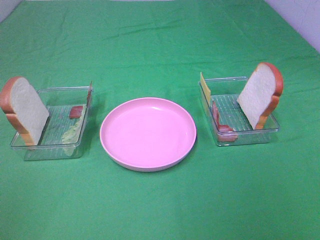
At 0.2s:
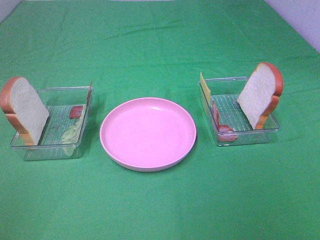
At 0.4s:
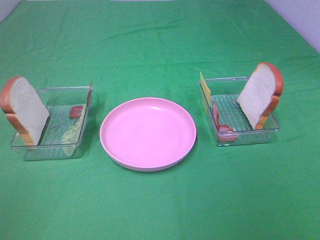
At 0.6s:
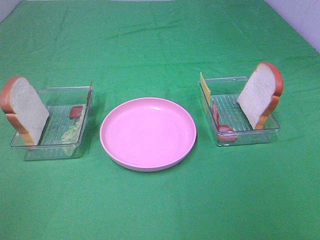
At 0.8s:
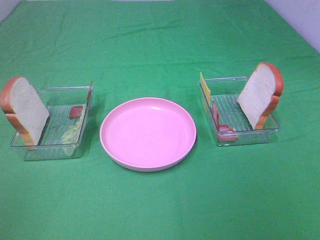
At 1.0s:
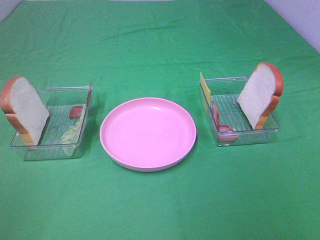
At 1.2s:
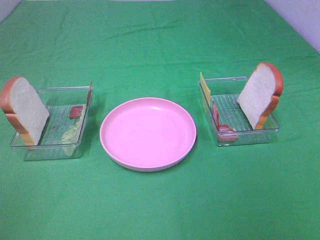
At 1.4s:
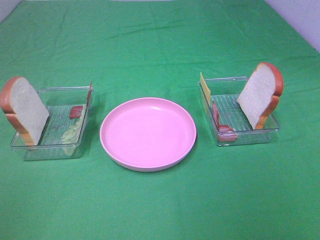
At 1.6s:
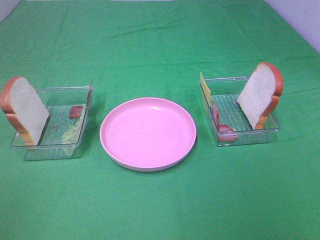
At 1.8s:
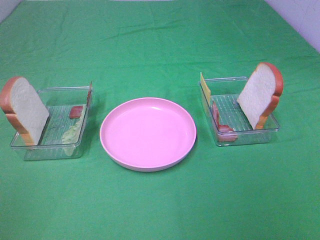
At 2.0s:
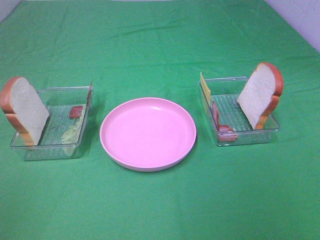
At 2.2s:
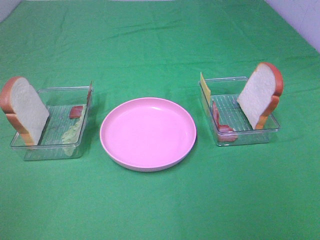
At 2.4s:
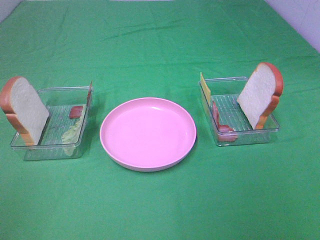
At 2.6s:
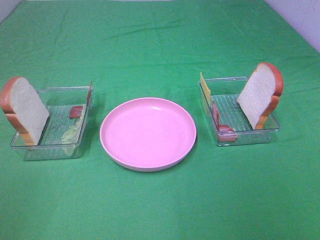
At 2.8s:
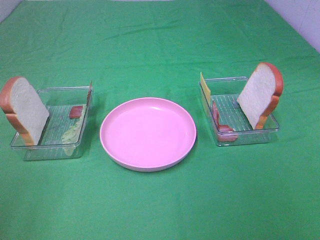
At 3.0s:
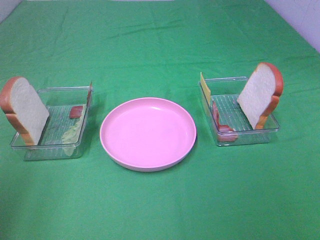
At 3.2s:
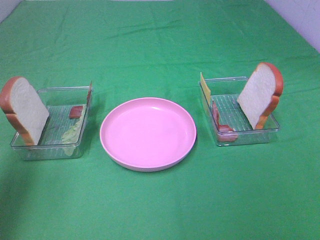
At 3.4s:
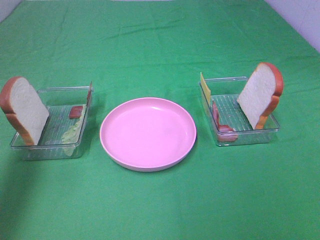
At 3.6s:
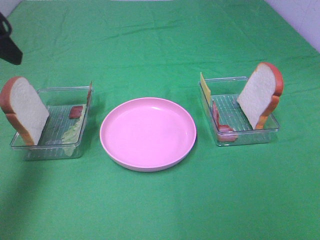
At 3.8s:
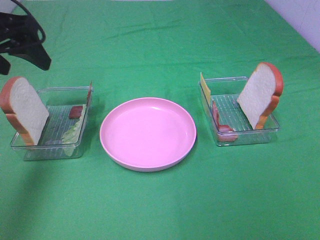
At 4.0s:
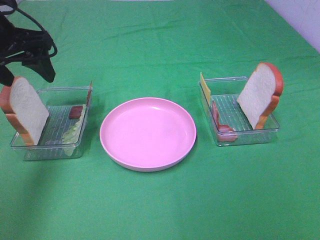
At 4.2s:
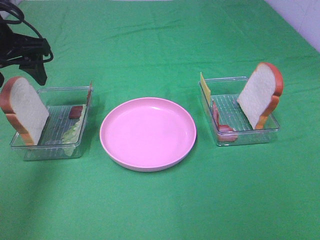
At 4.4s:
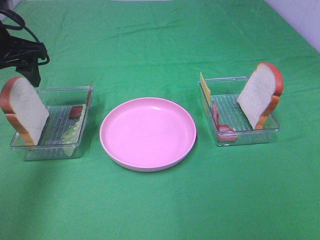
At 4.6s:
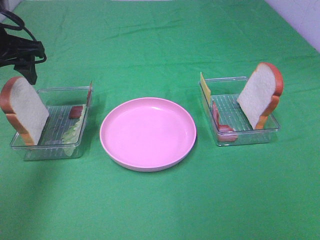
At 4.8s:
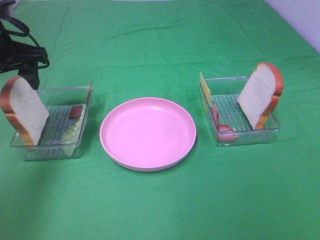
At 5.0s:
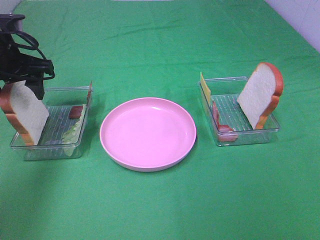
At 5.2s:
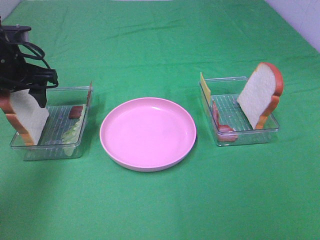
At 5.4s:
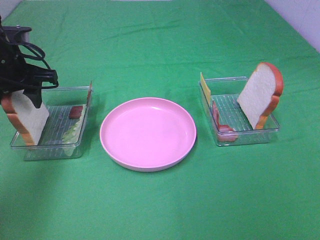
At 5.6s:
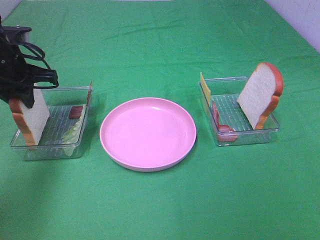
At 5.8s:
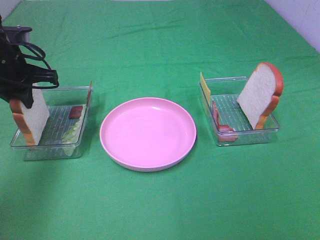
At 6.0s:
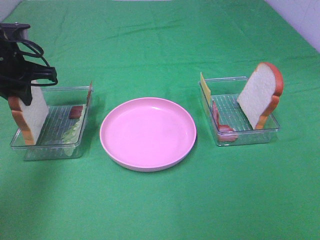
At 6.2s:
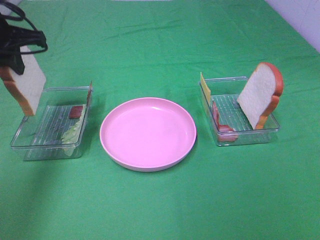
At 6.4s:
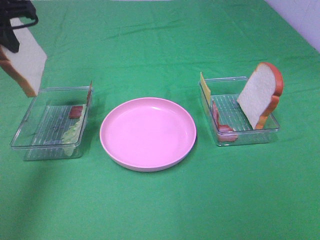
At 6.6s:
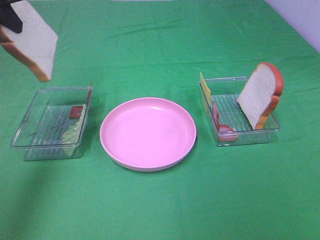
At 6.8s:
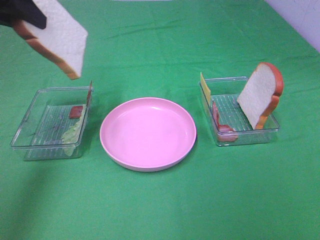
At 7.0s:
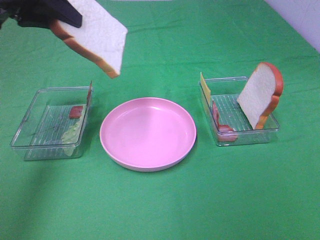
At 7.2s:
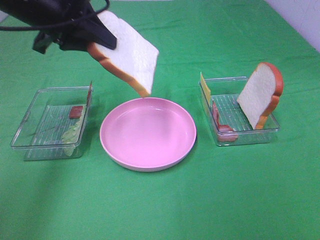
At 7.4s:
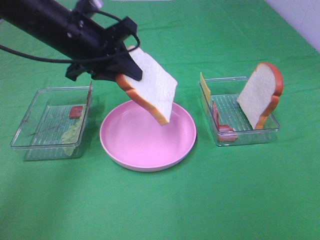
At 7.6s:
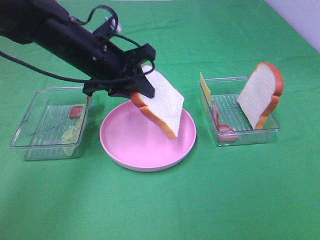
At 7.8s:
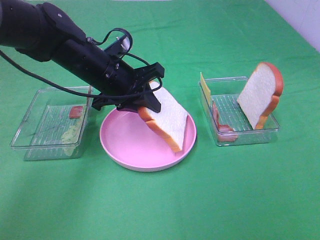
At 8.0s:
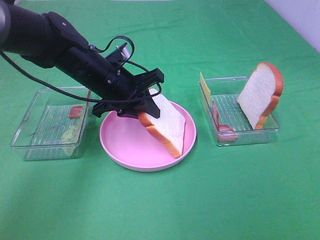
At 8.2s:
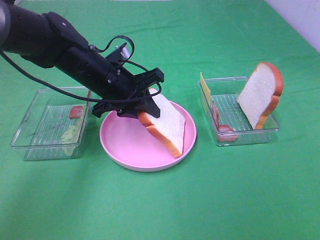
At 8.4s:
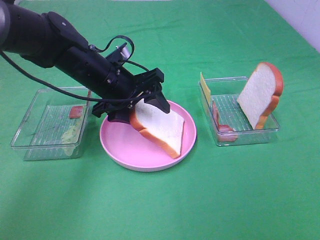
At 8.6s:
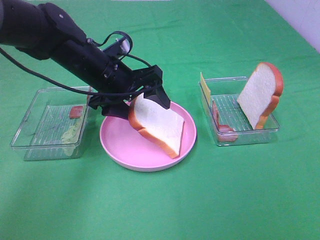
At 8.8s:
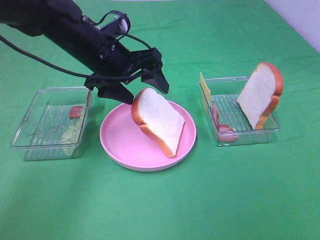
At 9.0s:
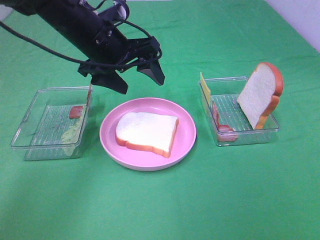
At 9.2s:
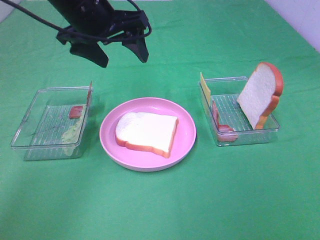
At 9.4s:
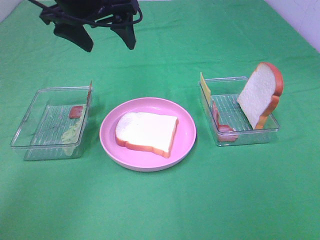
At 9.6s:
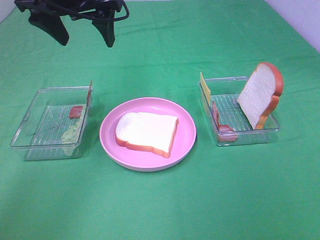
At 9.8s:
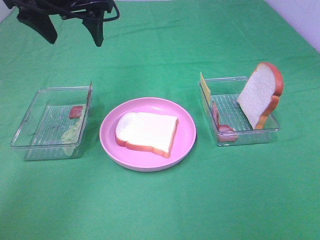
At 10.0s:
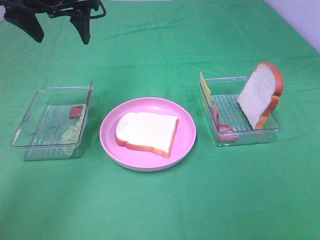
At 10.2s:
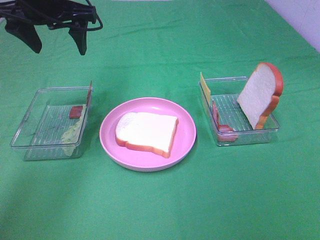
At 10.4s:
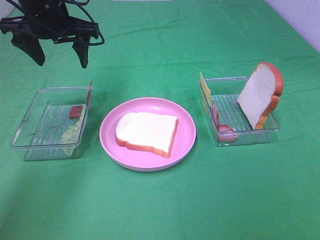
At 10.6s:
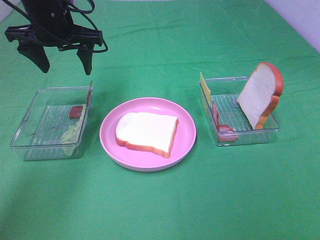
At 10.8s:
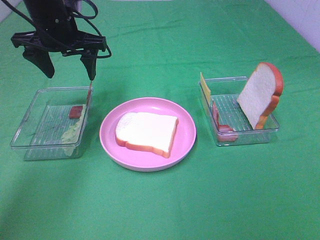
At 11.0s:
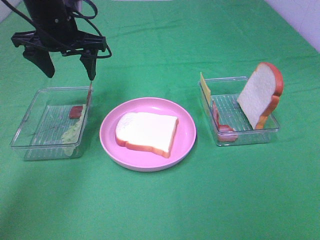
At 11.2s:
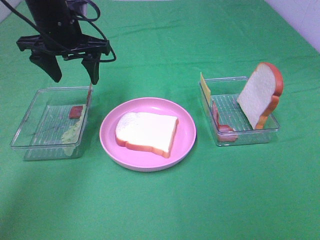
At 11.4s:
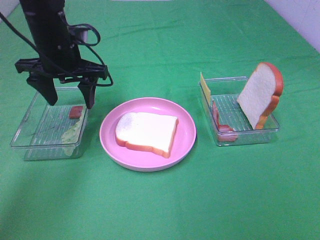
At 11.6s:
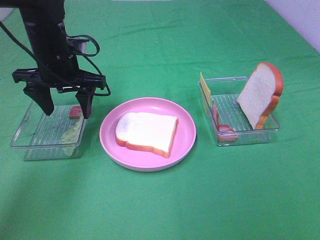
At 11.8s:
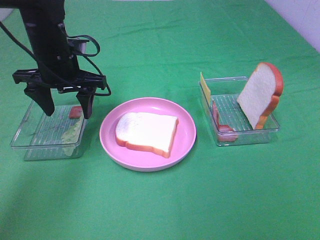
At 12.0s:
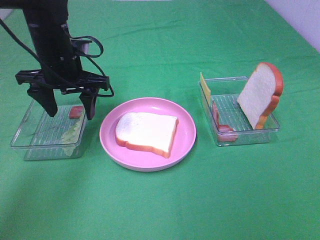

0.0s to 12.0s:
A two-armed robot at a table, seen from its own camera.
Task of the whole recording: Make sandwiches.
Step, 0.0s to 5.8s: Left hand:grab the bread slice.
Step, 6.0s to 9.0s: Left hand:place the bread slice on the plate.
0.0s to 1.6s: The two grippers keep their place.
3.0s to 4.4s: The left gripper goes approximately 25 cm forward.
4.4s to 6.0s: The left gripper closes.
6.0s to 7.6s: The left gripper shifts about 15 cm to the right.
7.6s to 9.0s: The left gripper opens its fingers.
9.0s to 10.4s: The left gripper goes some 10 cm to the left.
10.4s to 12.0s: The left gripper is displaced downward by roughly 10 cm.

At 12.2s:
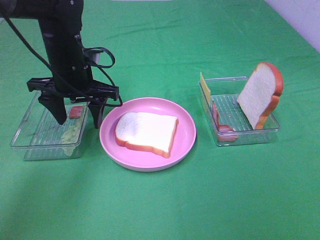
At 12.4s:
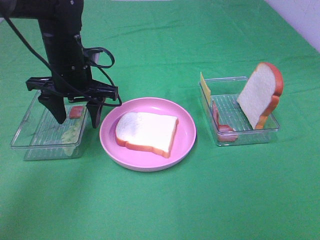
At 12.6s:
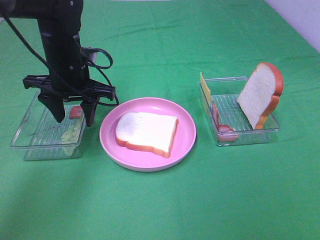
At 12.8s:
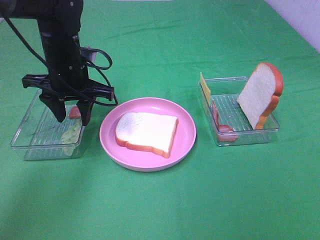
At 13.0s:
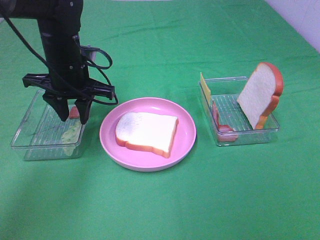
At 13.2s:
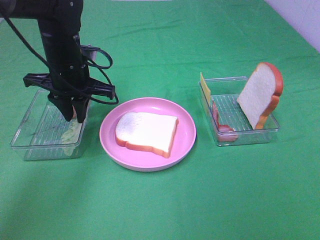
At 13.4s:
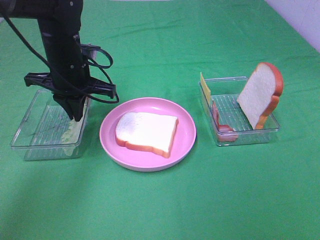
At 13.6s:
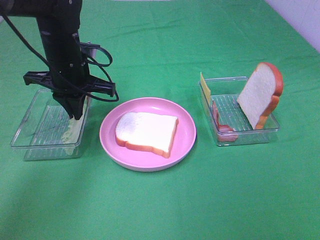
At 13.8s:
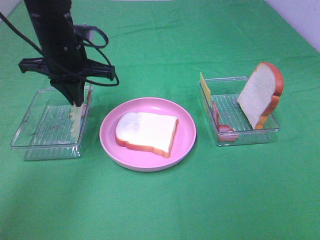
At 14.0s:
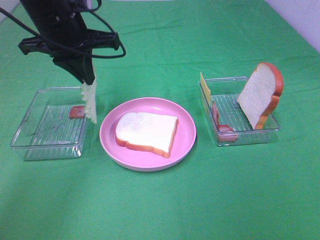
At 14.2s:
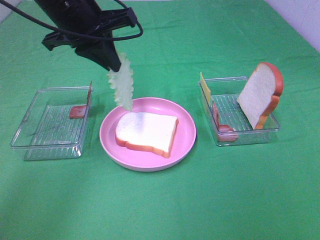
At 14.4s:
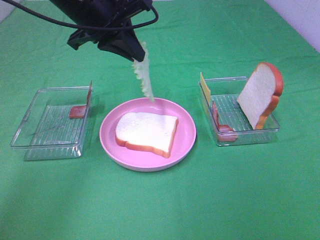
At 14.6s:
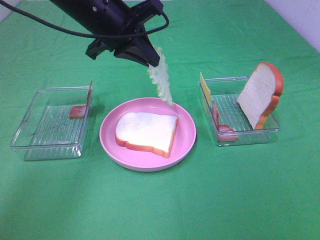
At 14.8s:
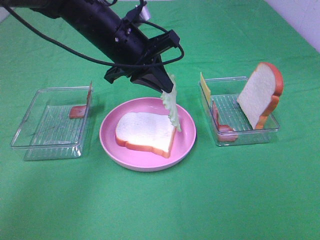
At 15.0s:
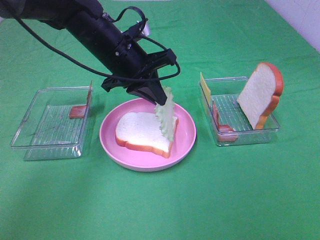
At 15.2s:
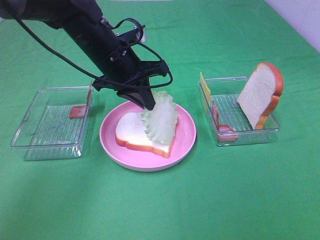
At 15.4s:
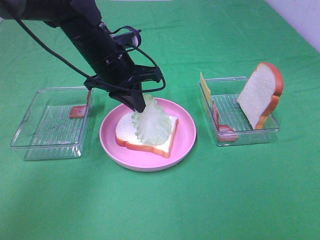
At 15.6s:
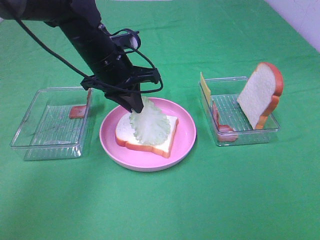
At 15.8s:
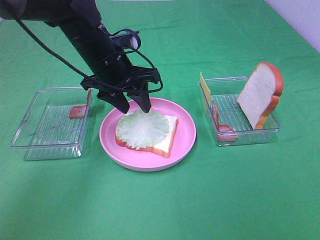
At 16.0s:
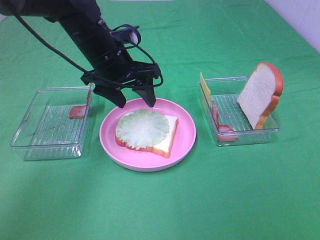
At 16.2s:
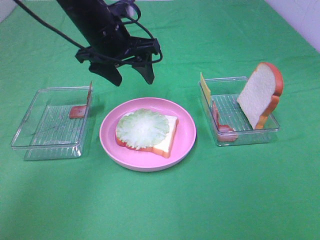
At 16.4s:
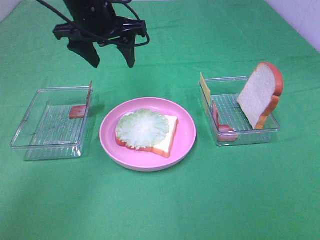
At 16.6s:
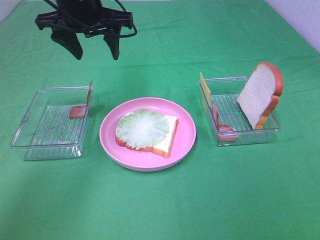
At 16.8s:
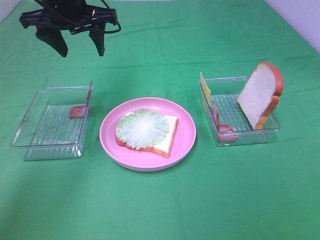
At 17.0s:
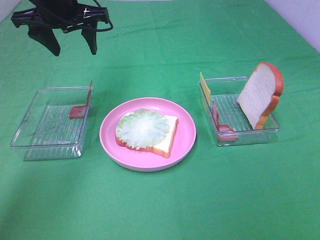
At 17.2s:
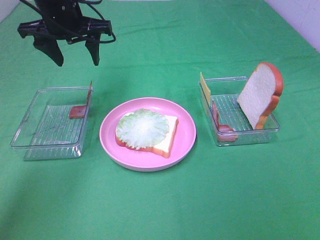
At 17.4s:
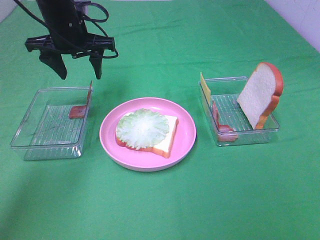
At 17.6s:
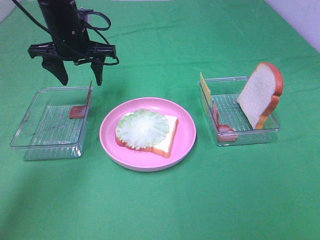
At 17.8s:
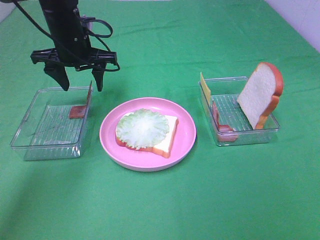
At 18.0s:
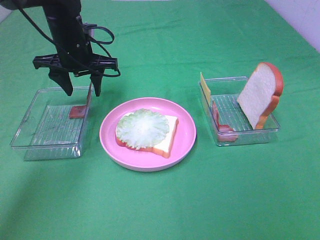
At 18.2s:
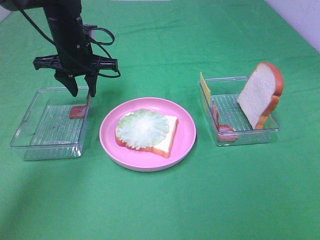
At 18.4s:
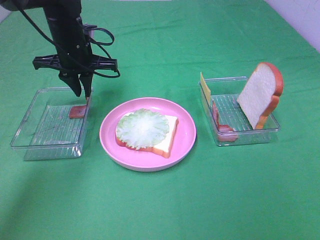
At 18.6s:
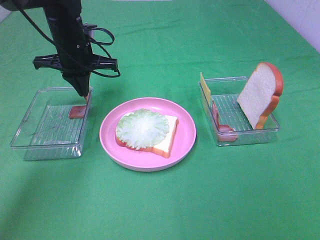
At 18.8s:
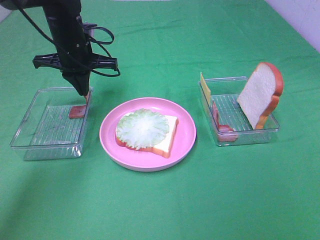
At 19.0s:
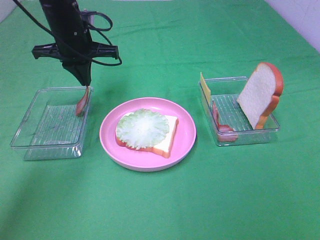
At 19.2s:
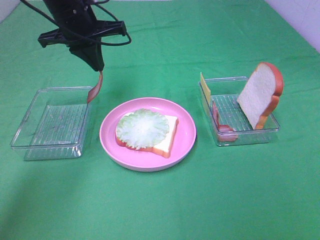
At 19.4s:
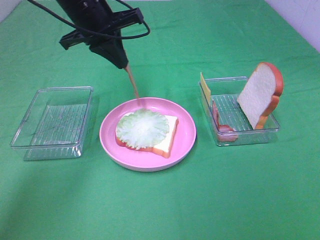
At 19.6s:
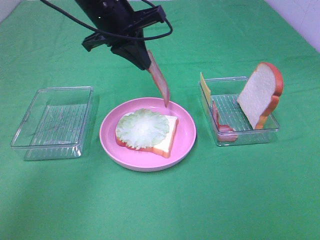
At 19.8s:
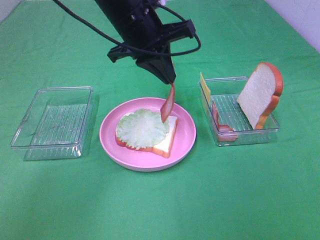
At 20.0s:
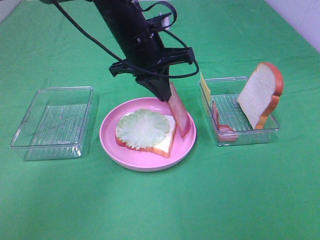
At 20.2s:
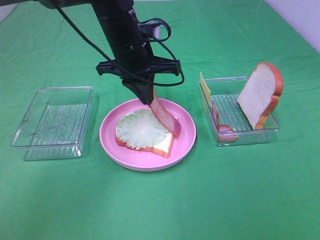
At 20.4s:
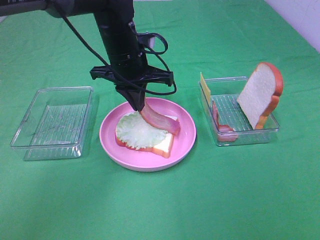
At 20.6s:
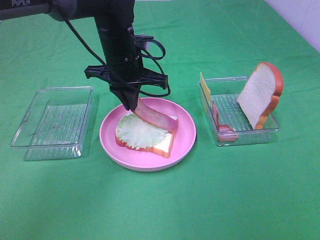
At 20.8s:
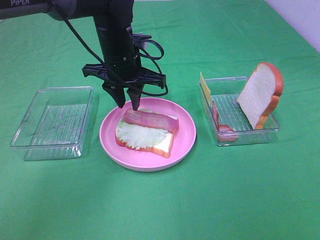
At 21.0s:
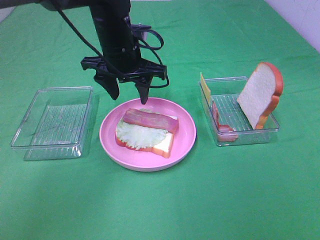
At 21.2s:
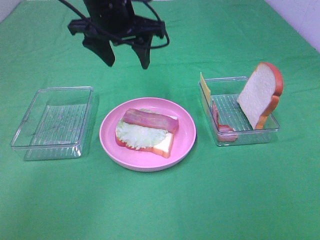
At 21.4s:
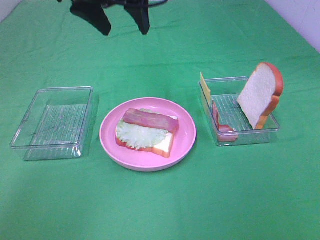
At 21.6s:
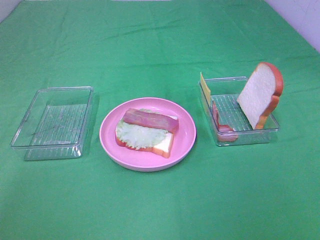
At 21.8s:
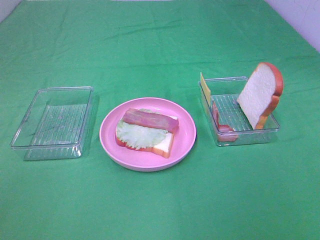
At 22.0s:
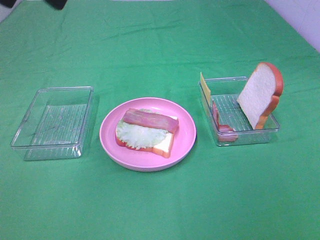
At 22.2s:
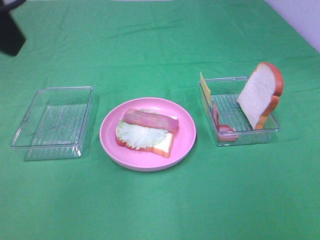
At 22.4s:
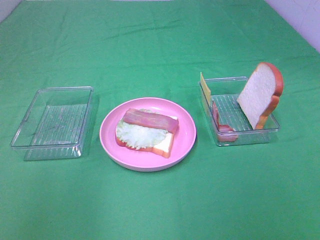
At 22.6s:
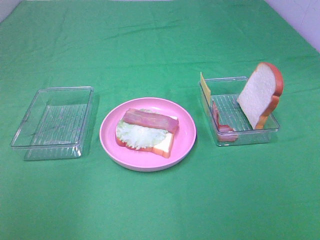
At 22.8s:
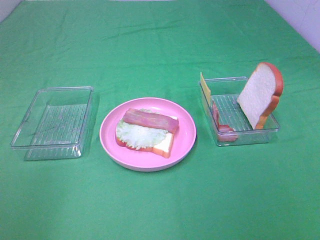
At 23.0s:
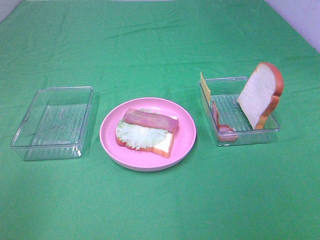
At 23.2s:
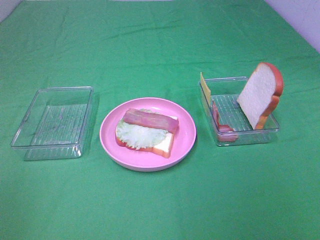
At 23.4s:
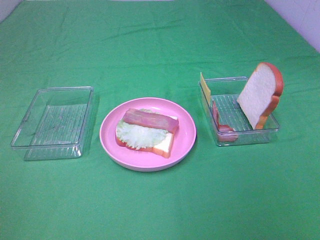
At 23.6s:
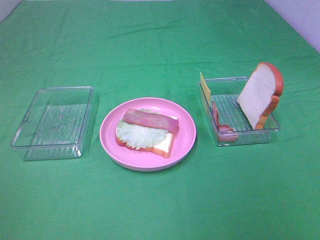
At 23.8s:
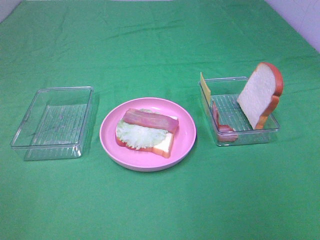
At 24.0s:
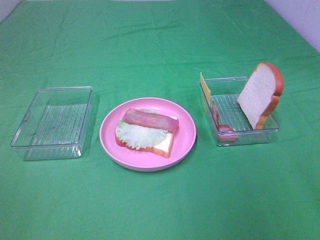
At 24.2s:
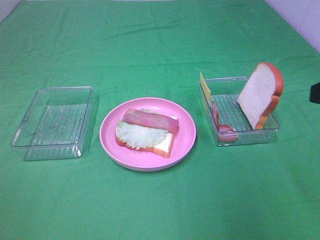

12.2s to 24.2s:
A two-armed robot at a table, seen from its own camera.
Task of the whole recording: Make sandwiches.
Step, 13.8s to 16.0s: Left hand:place the lettuce slice on the bread slice.
Step, 16.2s to 18.8s: Left hand:grab the bacon.
Step, 19.0s to 20.8s: Left hand:place bacon on lettuce slice.
12.2s to 13.8s: The left gripper goes about 5 cm upward, and closes its fingers.
13.8s to 15.2s: The left gripper is displaced to the right by some 5 cm.
15.2s to 16.6s: The left gripper moves upward, about 10 cm, and opens.
16.6s to 18.2s: The left gripper travels downward by about 10 cm, and closes its fingers.
18.2s to 19.8s: The left gripper is displaced to the right, upward and backward by some 15 cm, and closes up.
19.8s to 21.2s: The left gripper changes place by some 5 cm, and opens.
21.2s to 22.6s: The left gripper travels backward and to the left by roughly 35 cm.
